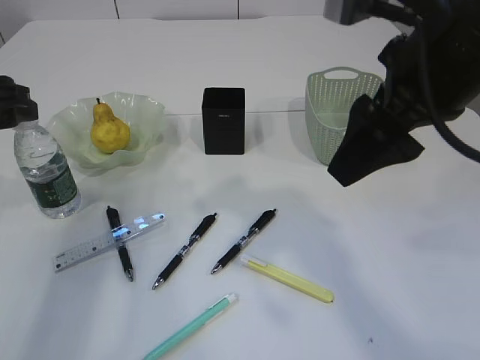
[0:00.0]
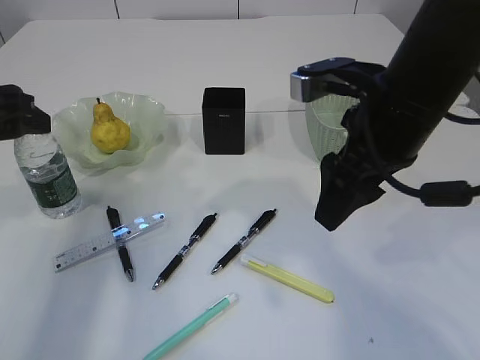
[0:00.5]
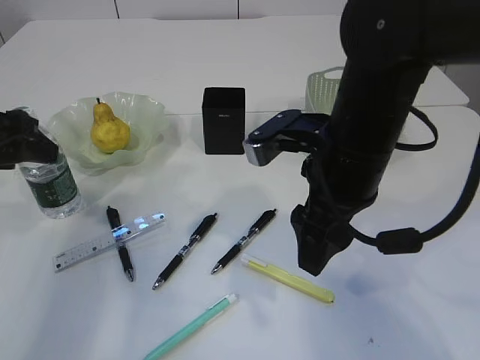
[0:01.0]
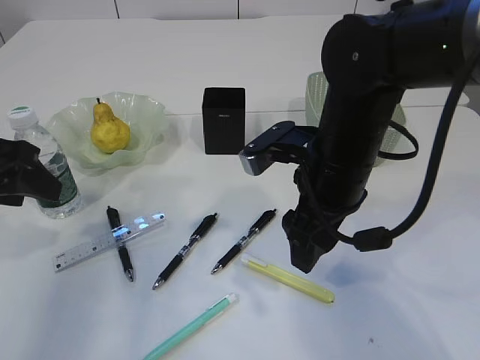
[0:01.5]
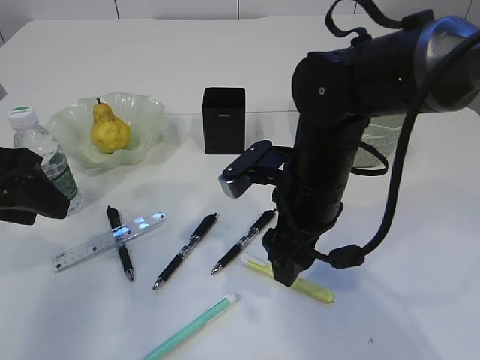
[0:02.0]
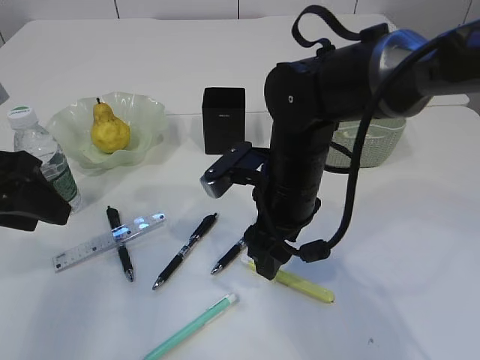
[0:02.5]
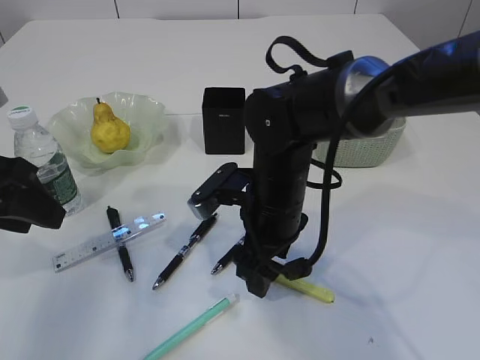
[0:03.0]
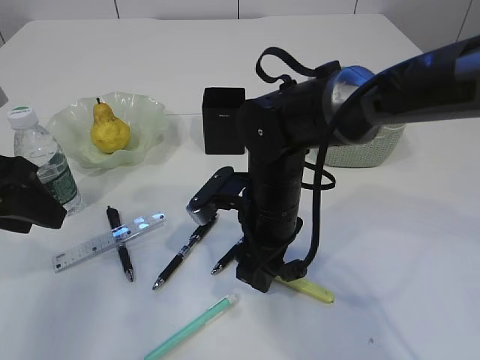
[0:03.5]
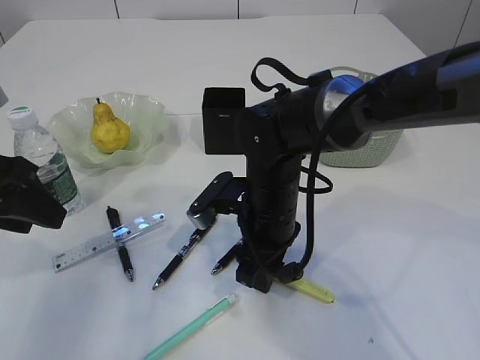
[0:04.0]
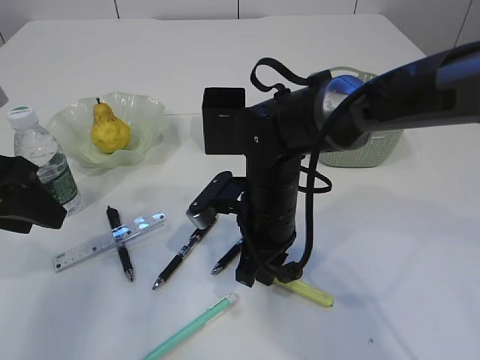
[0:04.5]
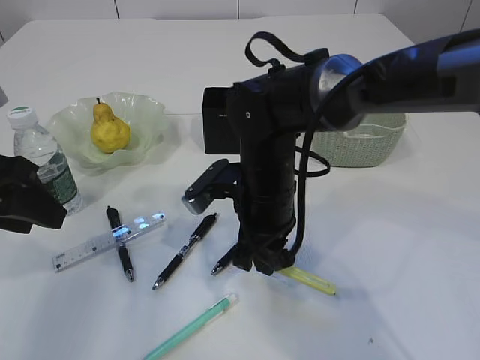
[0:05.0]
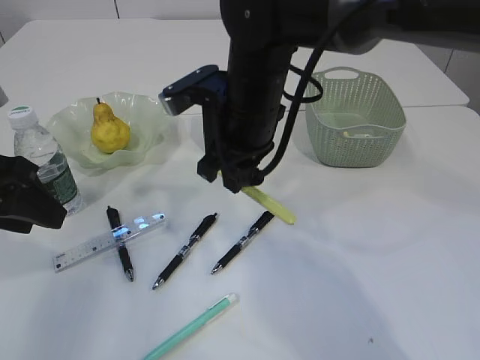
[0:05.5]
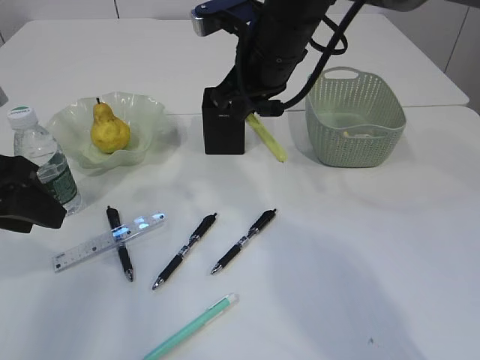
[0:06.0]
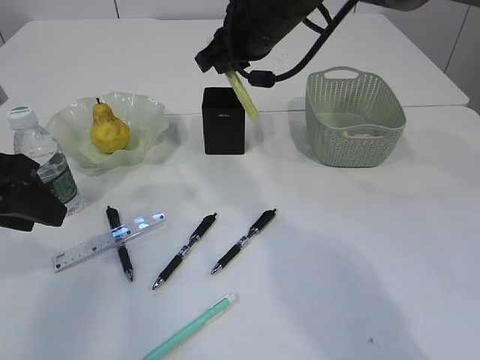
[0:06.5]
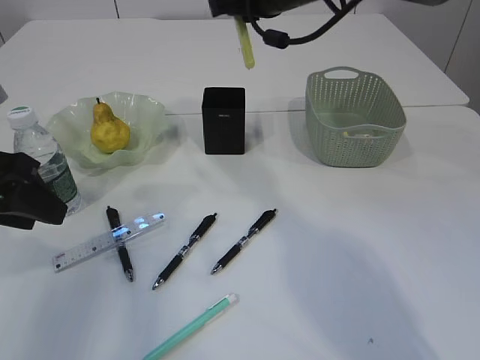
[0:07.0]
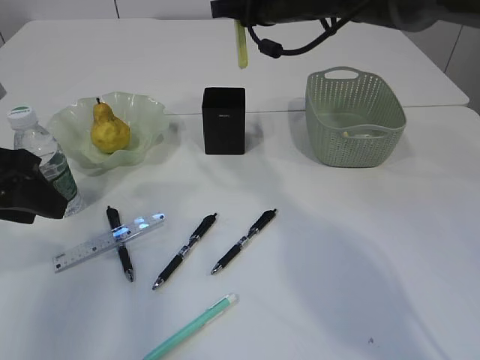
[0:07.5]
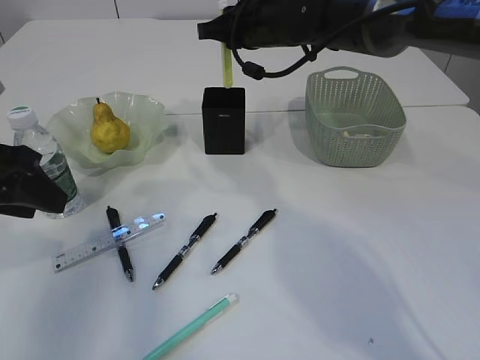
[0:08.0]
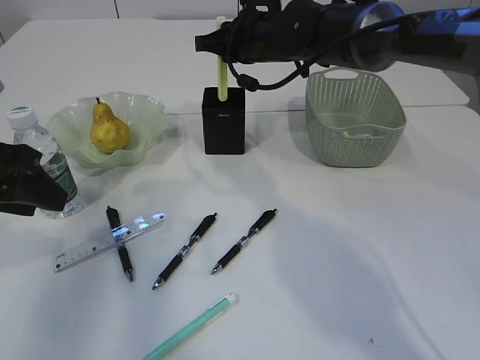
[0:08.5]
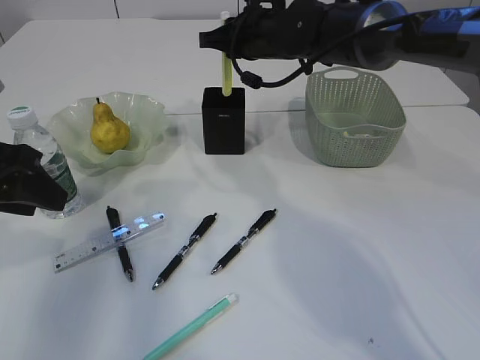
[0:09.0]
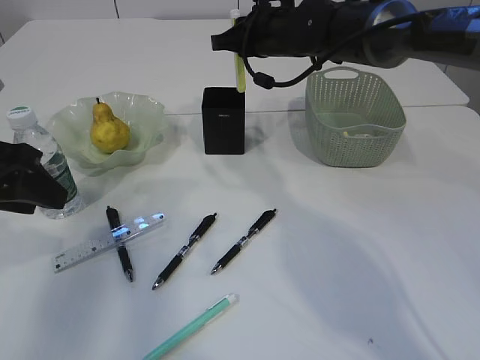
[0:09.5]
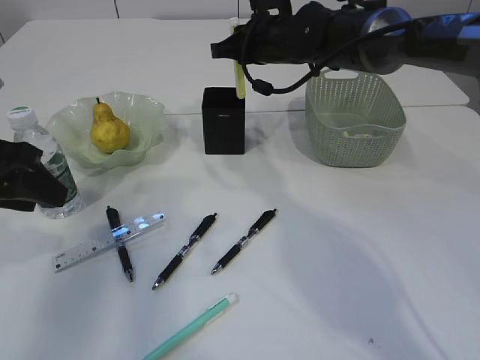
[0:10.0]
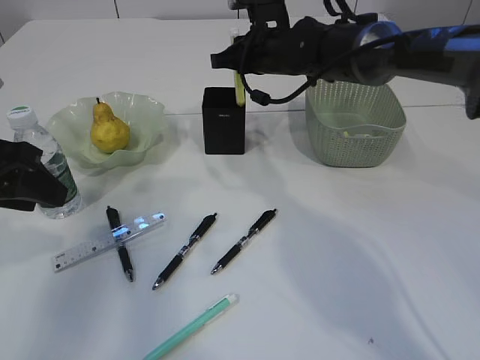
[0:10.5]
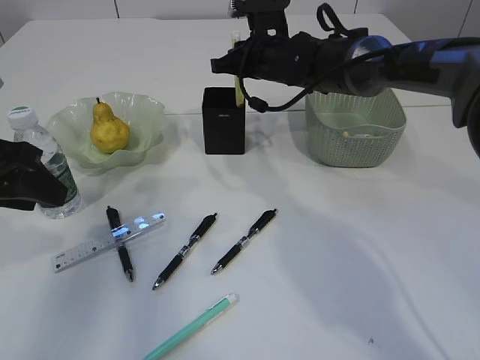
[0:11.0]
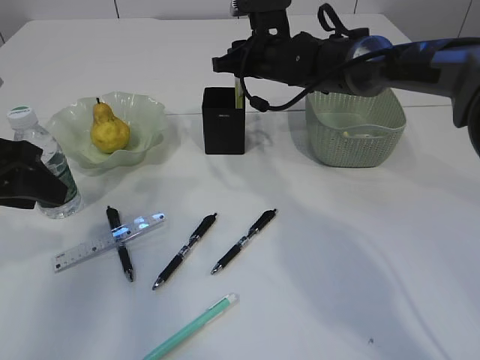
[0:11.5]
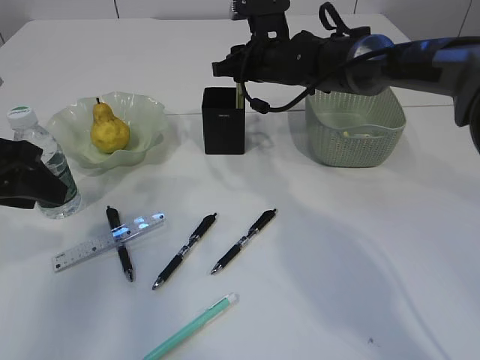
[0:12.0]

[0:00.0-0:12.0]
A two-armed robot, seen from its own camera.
Step, 0:00.0 to 0:05.0: pick up the yellow knife.
0:00.0 to 0:02.0: The right gripper is displaced downward and to the left by about 15 cm. The left gripper goes some 5 cm backward.
0:02.0 to 0:04.0: The right gripper travels downward by about 5 cm, and closes.
0:04.0 to 0:06.0: The right gripper heads upward and forward, covering about 15 cm, and closes.
0:06.0 to 0:08.0: The right gripper is displaced forward by some 10 cm.
0:08.0 to 0:10.0: The grippers make only small movements.
0:10.0 to 0:12.0: The right gripper opens its fingers.

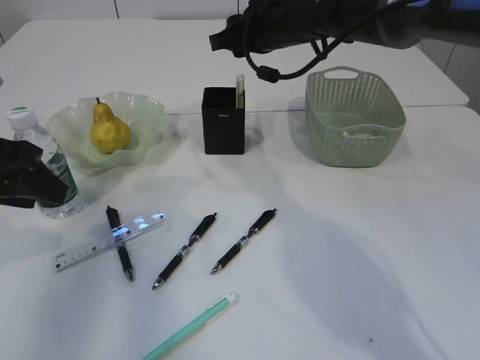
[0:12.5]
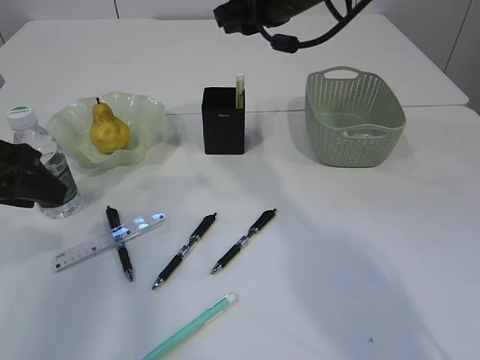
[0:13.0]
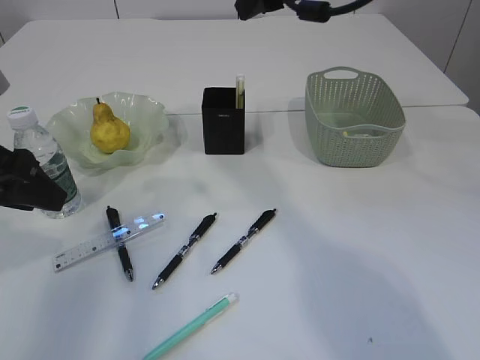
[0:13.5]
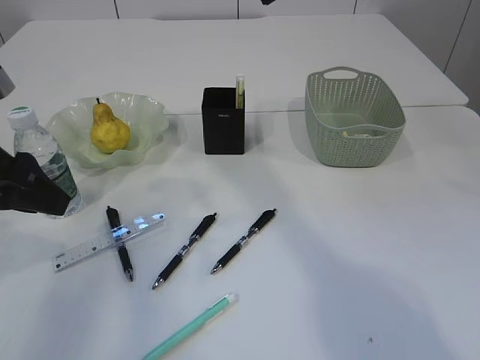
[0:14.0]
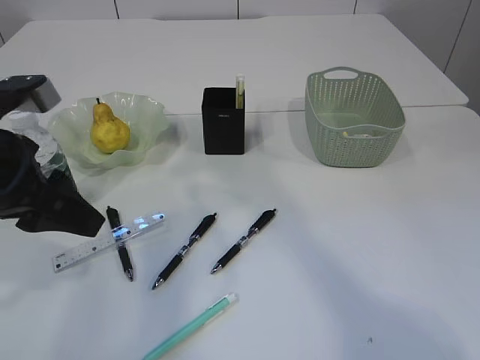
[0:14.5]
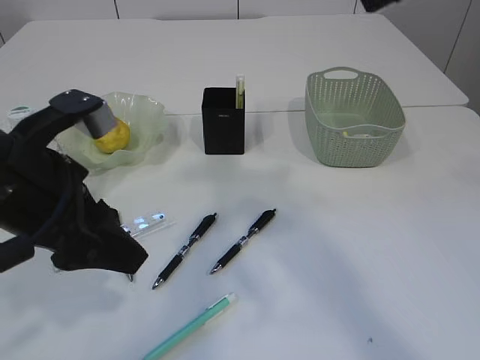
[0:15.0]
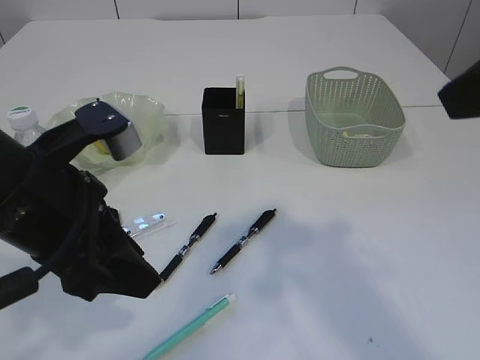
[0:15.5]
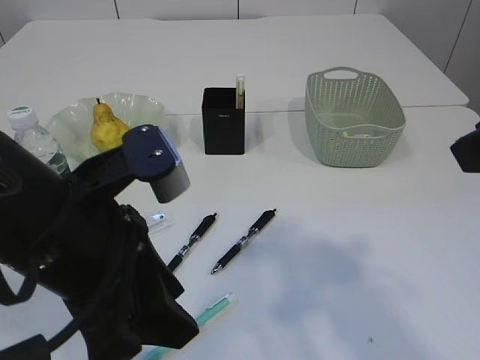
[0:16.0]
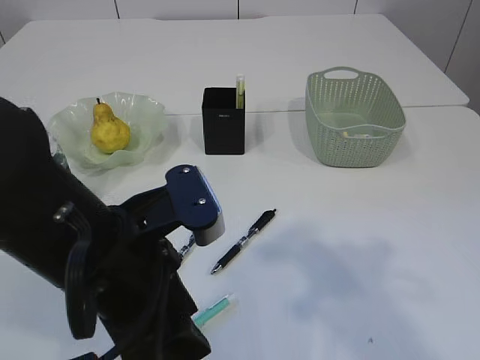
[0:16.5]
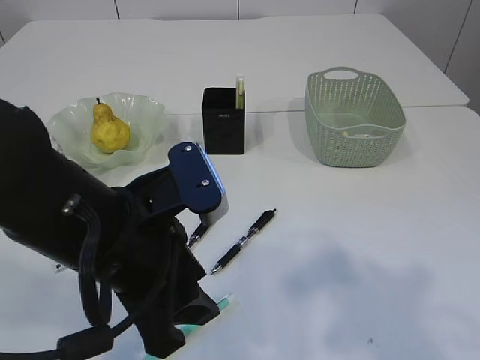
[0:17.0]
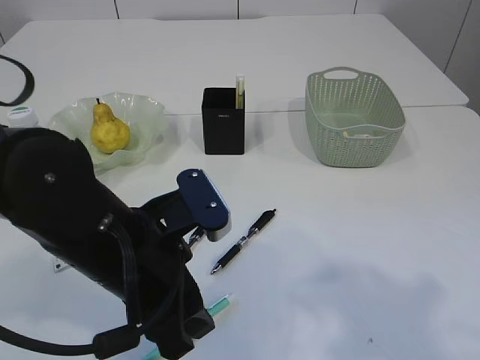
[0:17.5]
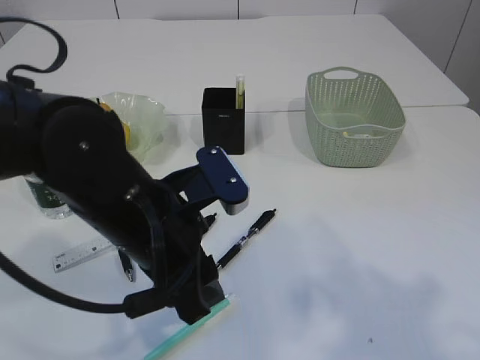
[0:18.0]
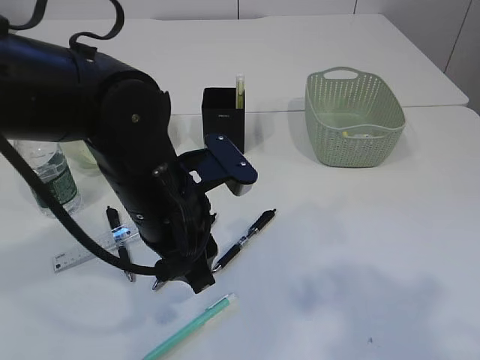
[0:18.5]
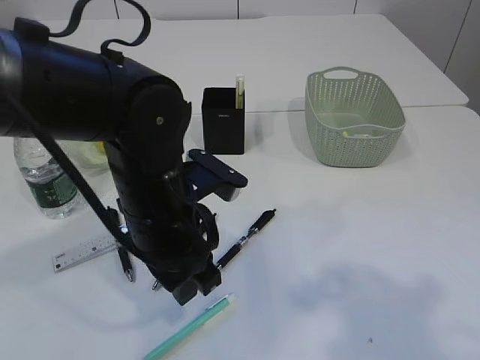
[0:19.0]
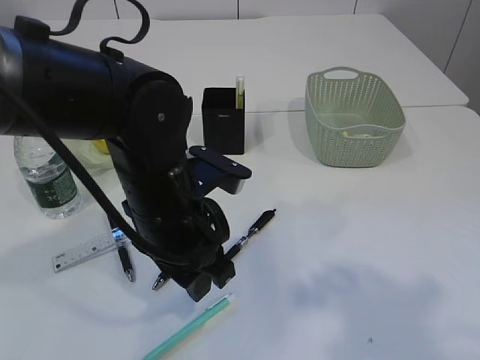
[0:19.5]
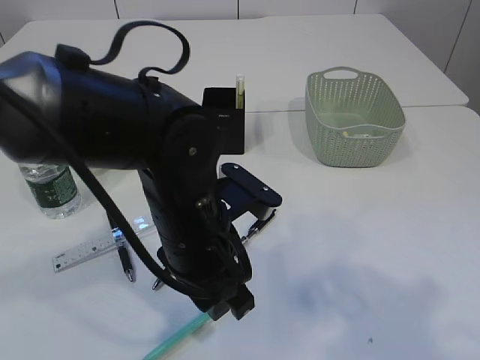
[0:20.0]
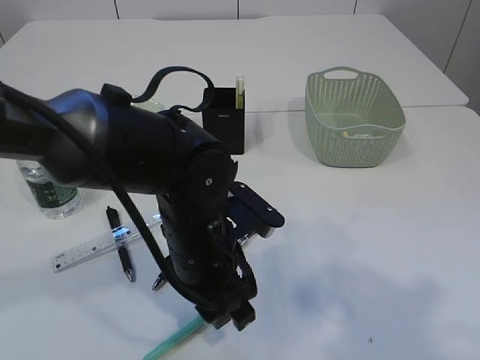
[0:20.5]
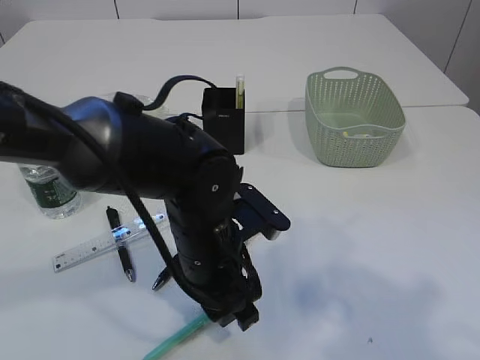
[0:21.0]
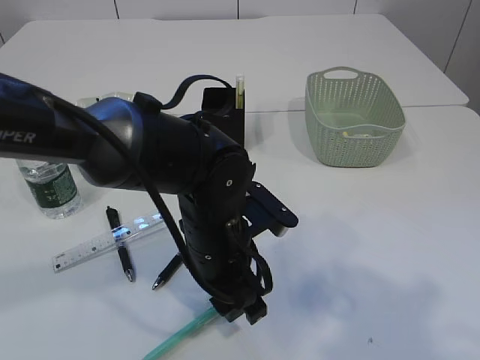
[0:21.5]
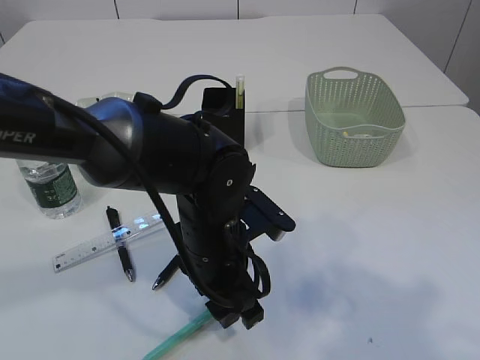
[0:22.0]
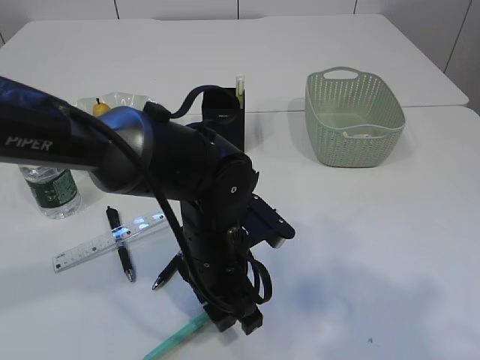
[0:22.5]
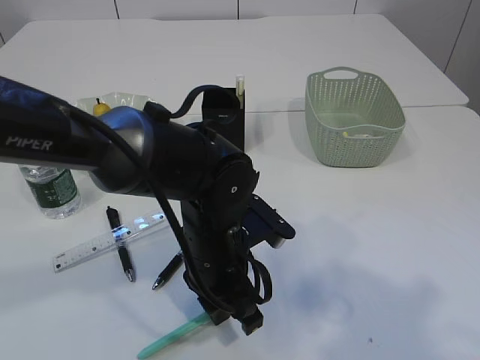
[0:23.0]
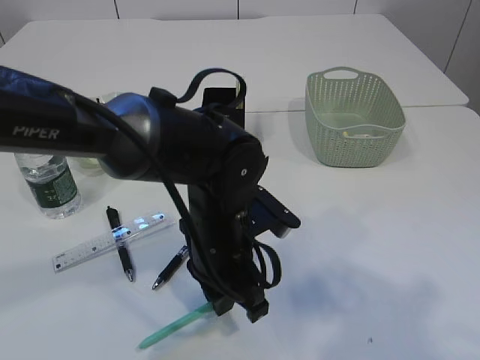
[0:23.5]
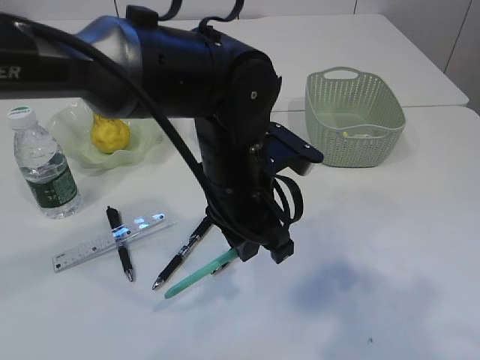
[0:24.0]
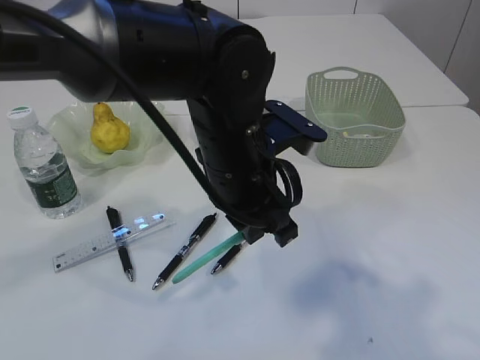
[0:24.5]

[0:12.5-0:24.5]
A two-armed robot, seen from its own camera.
Step, 0:13.0 to 0:24.0: pick up the blue knife.
0:12.5 to 0:14.5: The right gripper goes approximately 25 cm upward and backward.
0:14.5 to 0:16.5: The right gripper heads backward, downward and to the right, covering approximately 20 cm. Meanwhile the left gripper is displaced to the right and backward by some 15 cm.
0:16.5 to 0:18.5: The left gripper moves forward, approximately 10 cm. The right gripper travels backward by some 5 cm.
0:18.5 to 0:20.5: The left gripper moves downward, roughly 5 cm.
0:20.5 to 0:22.5: The grippers make only small movements.
0:22.5 to 0:24.5: The left gripper travels upward by about 10 cm, and closes its fingers.

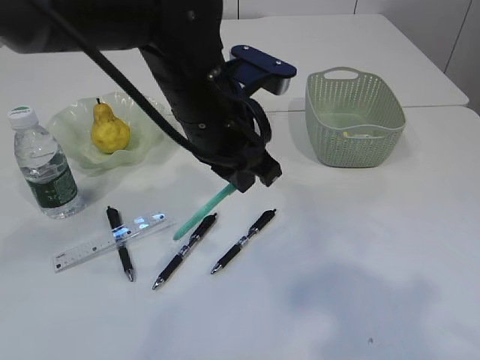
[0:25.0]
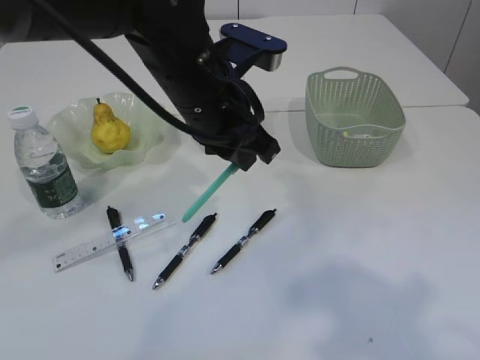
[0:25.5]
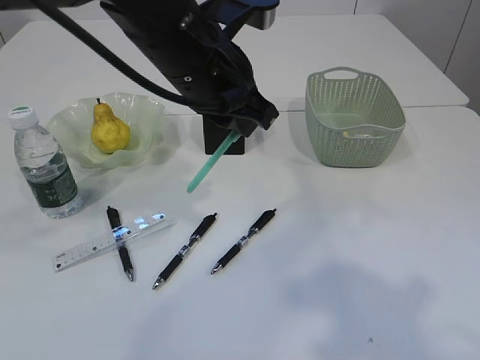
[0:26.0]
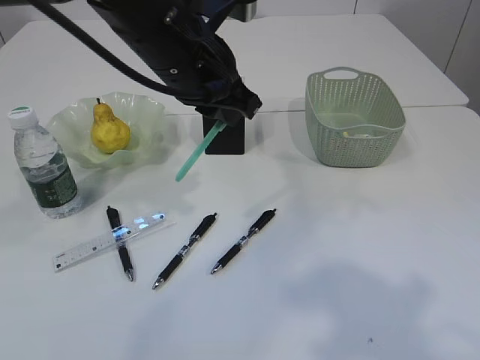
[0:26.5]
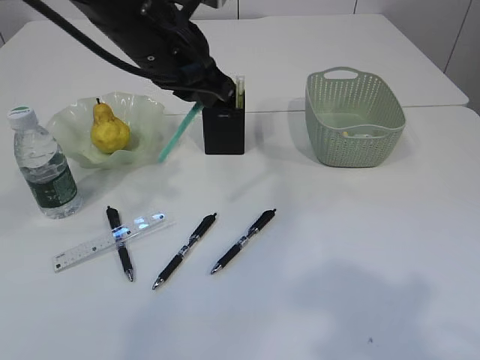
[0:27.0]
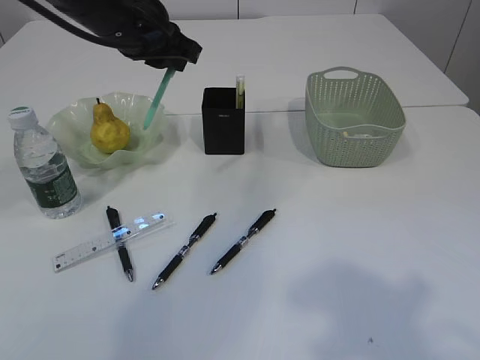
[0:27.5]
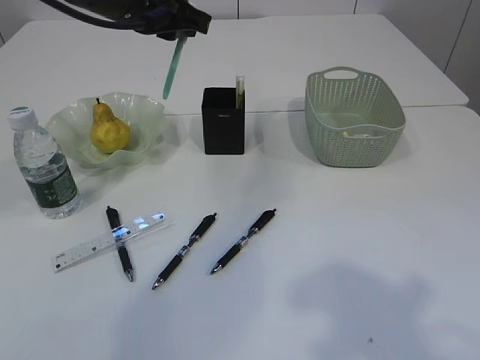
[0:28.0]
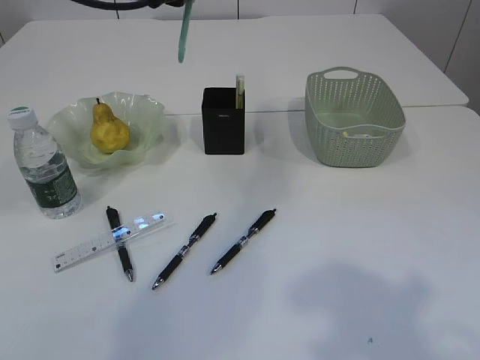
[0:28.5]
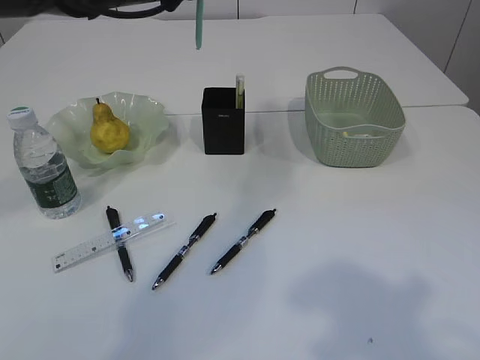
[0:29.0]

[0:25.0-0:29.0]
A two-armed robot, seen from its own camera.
0:25.0 to 0:27.0: The left gripper moves to the left and forward, some 10 cm.
0:27.0 to 0:29.0: The left gripper shifts approximately 5 cm forward.
